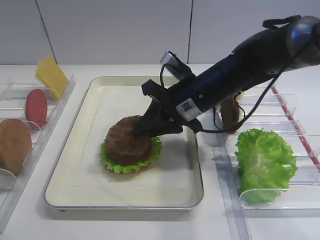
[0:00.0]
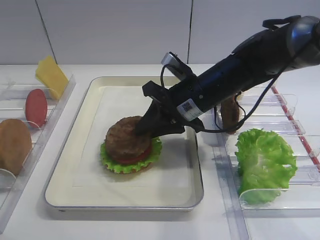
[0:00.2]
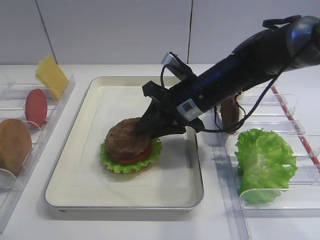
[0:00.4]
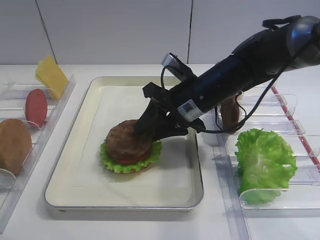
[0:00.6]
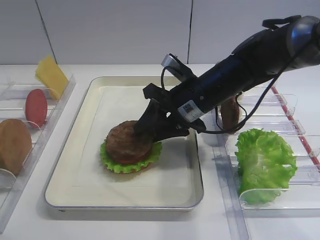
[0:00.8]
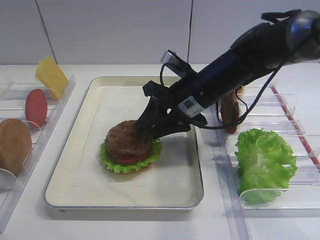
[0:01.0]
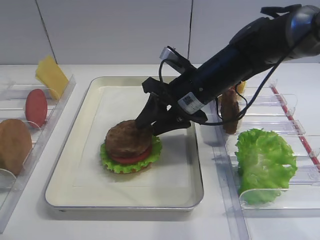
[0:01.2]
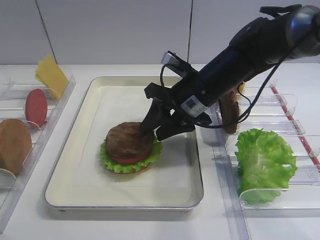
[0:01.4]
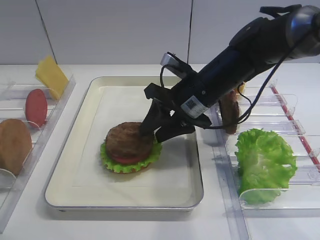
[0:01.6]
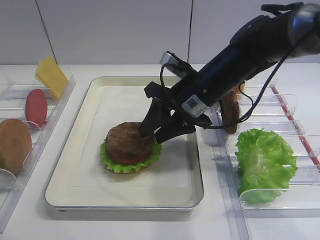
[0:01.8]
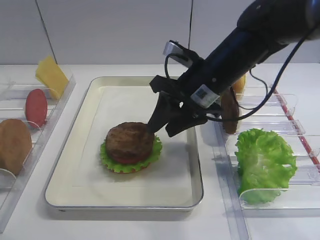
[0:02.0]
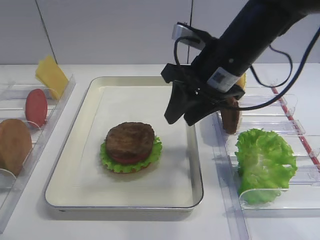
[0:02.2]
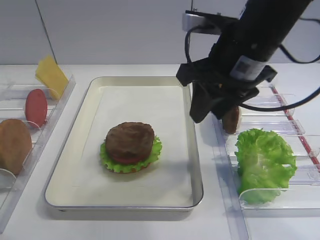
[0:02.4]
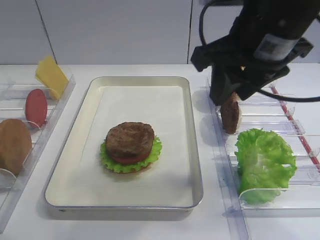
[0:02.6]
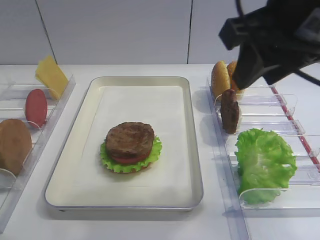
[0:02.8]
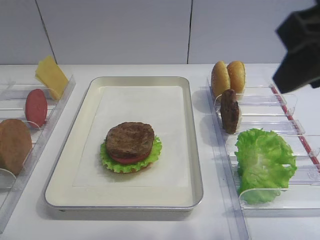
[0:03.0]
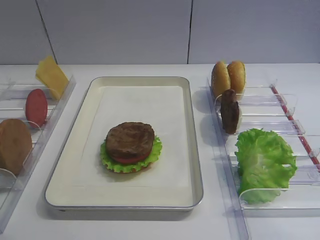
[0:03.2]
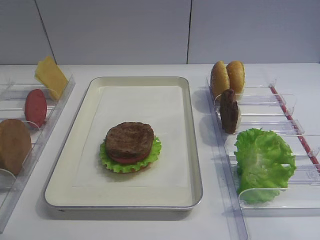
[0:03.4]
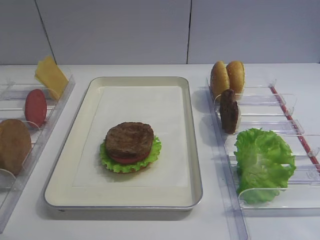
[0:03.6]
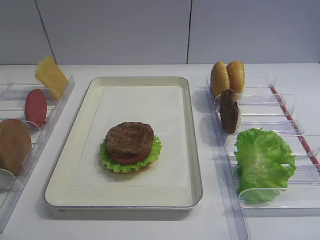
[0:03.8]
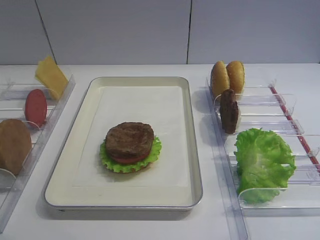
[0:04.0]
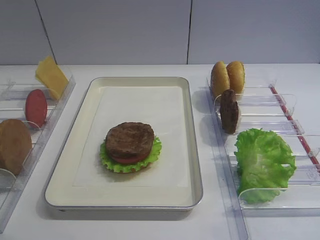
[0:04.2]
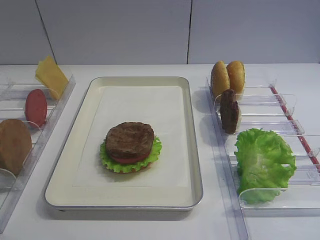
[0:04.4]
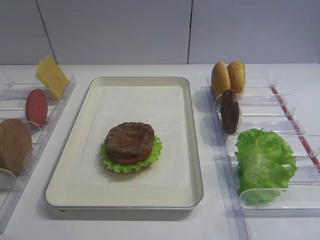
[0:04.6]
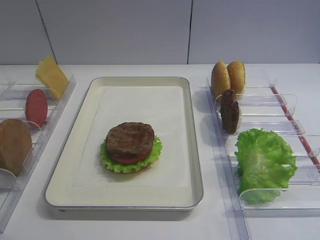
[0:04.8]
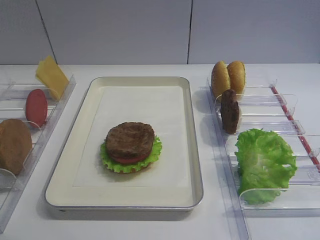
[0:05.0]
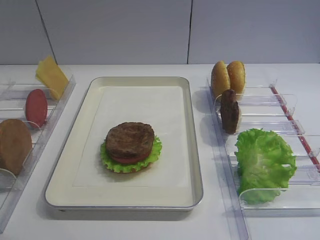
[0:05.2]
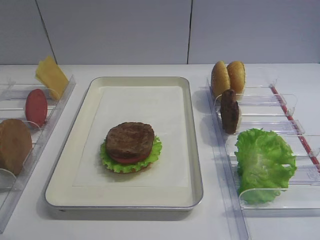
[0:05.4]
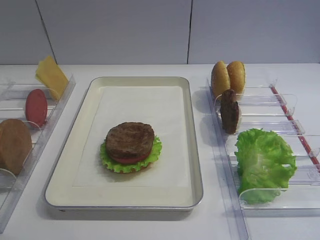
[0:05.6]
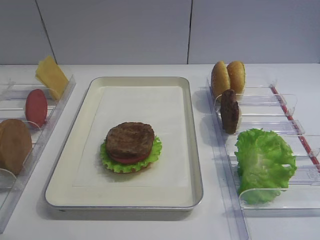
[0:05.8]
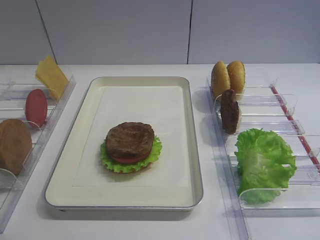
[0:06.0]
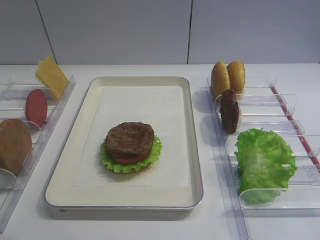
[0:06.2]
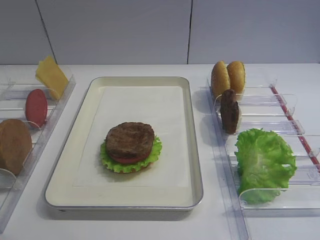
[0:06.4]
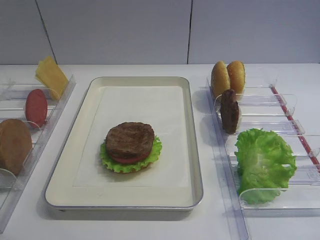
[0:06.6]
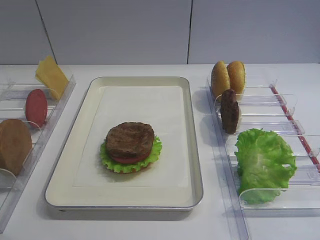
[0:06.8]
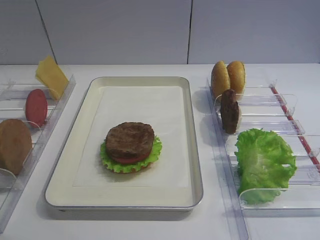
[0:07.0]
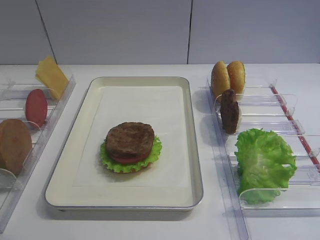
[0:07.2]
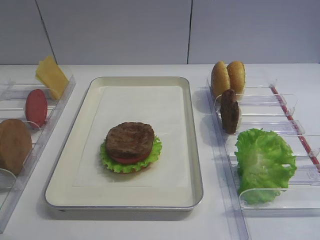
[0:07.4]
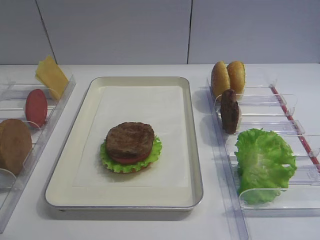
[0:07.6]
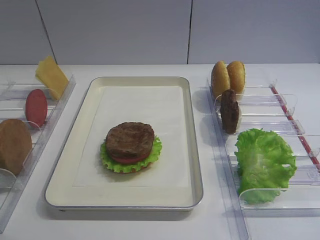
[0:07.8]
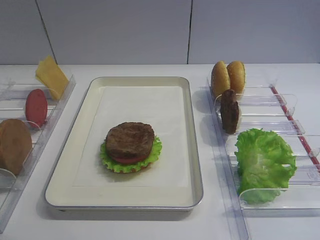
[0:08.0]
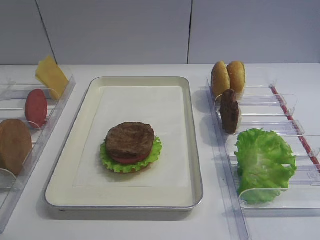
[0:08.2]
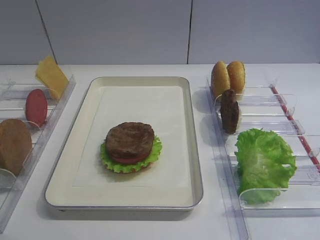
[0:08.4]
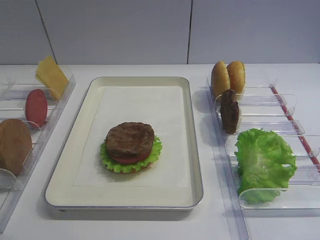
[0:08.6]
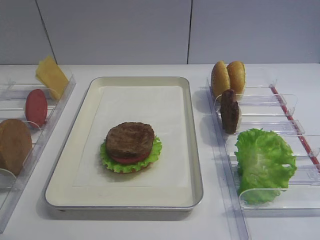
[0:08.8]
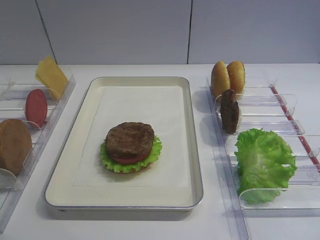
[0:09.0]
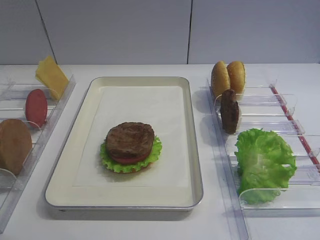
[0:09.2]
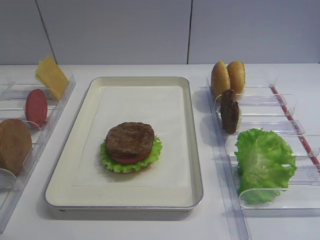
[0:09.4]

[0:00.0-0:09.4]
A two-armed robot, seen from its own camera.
Step, 0:00.0 to 0:02.0: Place the cutlet on the tomato slice with the right gripper.
0:00.0 to 0:01.6: The right gripper opens.
0:01.6 to 0:03.2: The right gripper is displaced backward, upward and to the right by approximately 35 cm.
0:06.2 to 0:09.4: Both grippers stay about where they are.

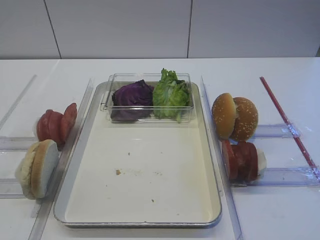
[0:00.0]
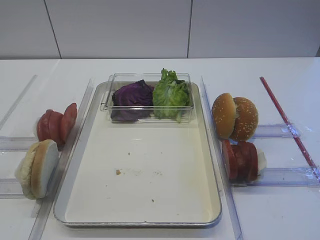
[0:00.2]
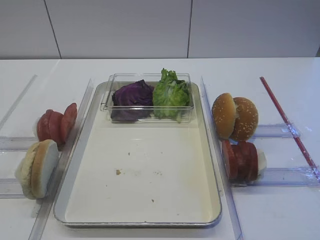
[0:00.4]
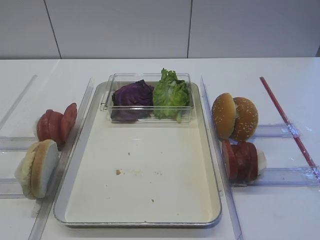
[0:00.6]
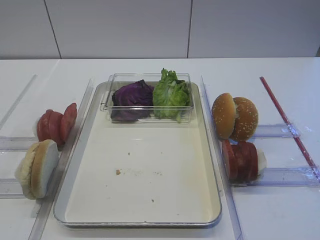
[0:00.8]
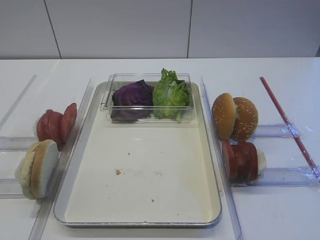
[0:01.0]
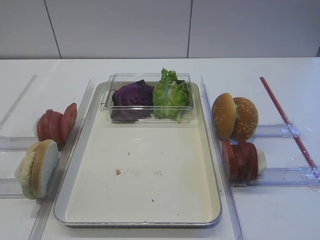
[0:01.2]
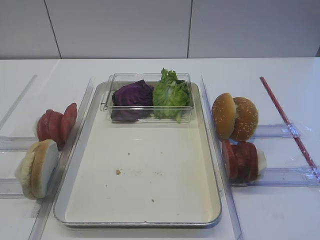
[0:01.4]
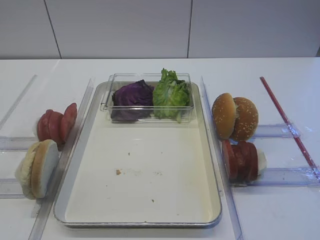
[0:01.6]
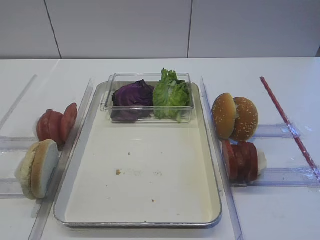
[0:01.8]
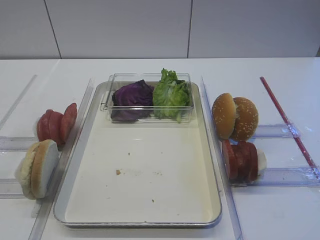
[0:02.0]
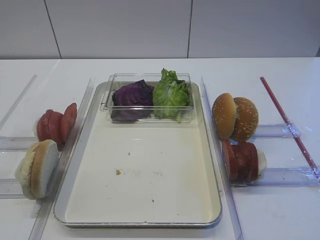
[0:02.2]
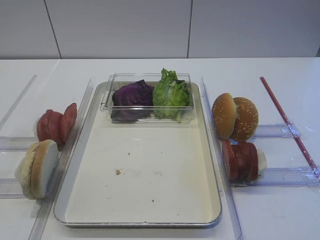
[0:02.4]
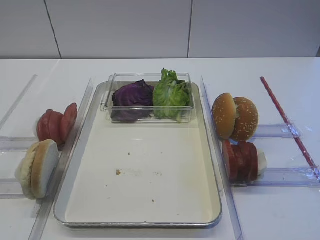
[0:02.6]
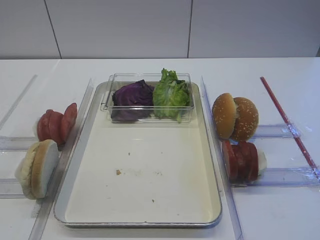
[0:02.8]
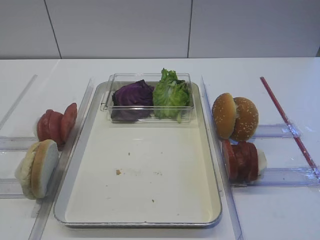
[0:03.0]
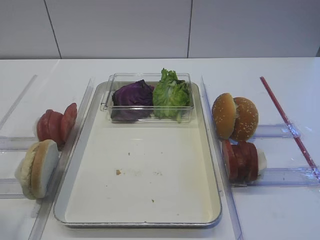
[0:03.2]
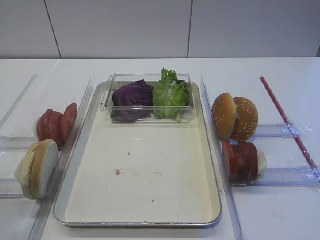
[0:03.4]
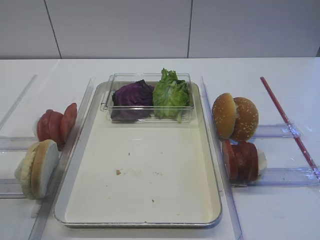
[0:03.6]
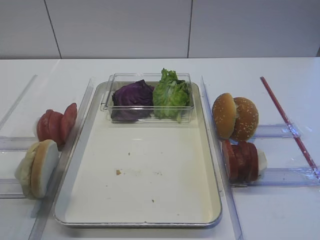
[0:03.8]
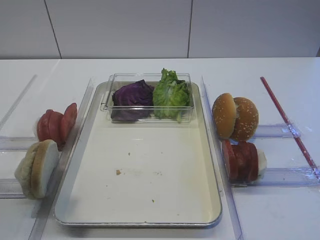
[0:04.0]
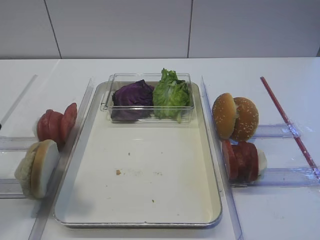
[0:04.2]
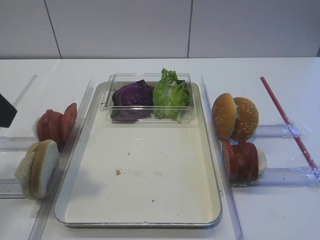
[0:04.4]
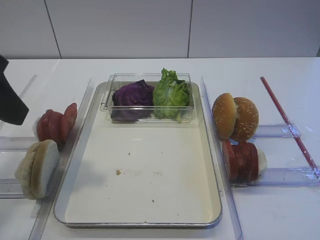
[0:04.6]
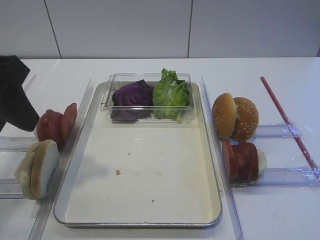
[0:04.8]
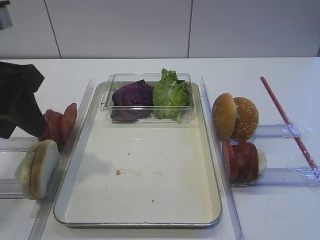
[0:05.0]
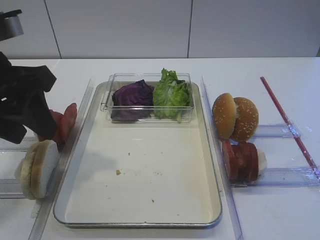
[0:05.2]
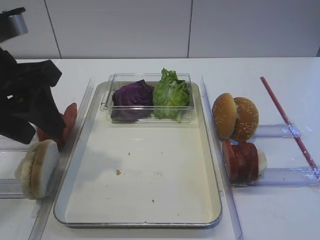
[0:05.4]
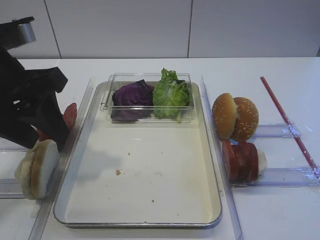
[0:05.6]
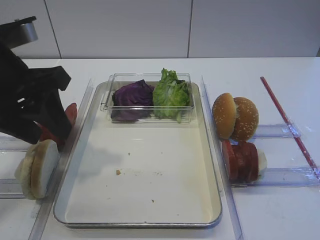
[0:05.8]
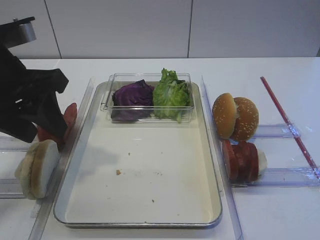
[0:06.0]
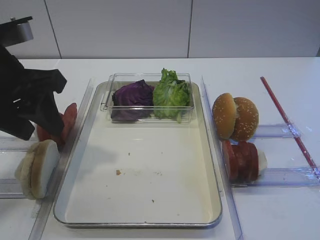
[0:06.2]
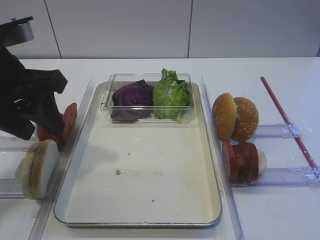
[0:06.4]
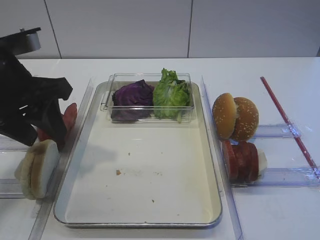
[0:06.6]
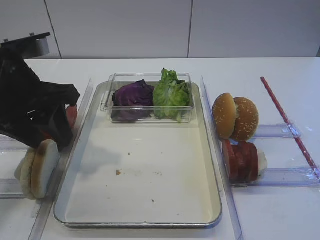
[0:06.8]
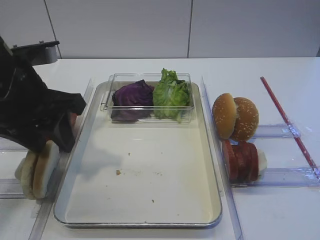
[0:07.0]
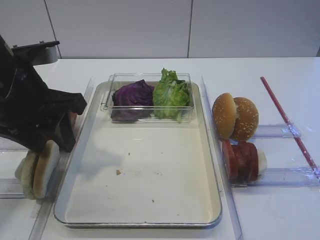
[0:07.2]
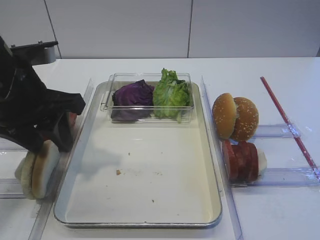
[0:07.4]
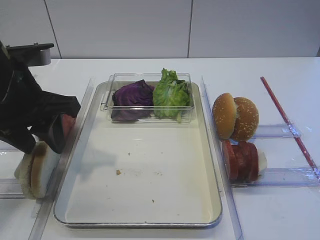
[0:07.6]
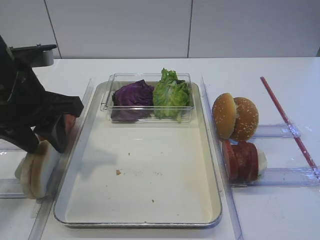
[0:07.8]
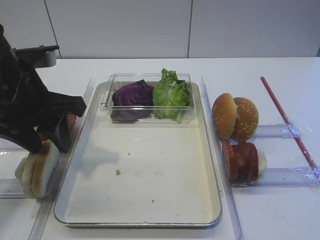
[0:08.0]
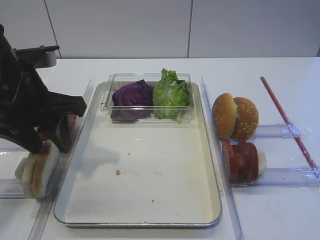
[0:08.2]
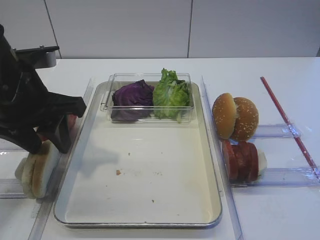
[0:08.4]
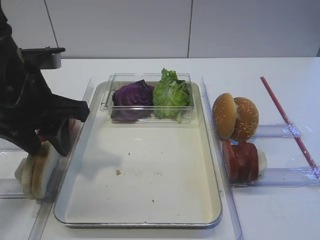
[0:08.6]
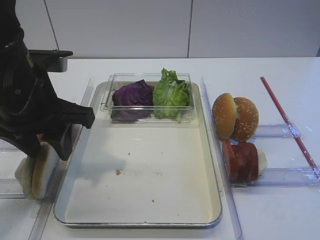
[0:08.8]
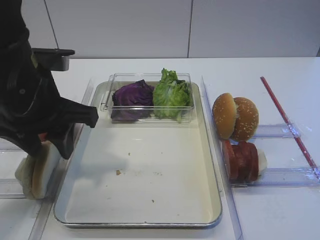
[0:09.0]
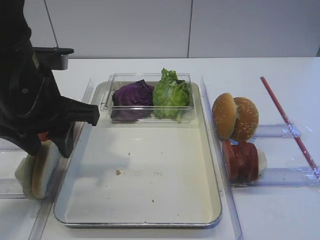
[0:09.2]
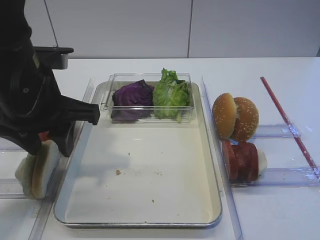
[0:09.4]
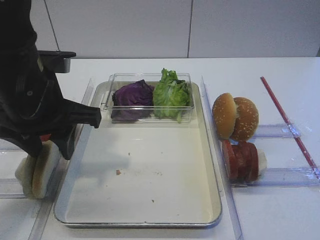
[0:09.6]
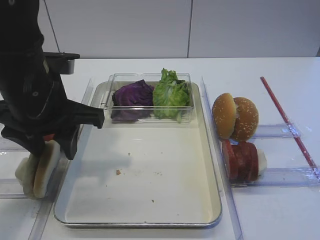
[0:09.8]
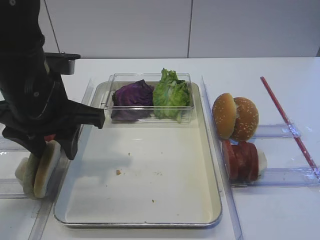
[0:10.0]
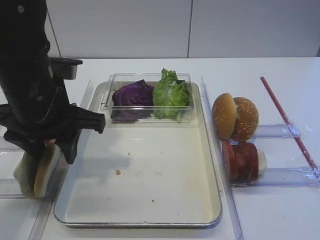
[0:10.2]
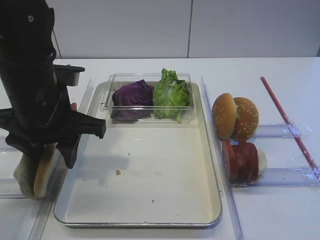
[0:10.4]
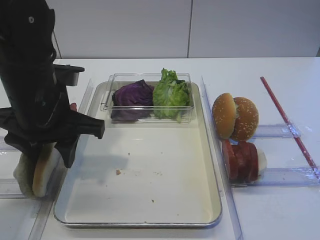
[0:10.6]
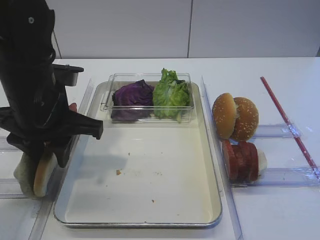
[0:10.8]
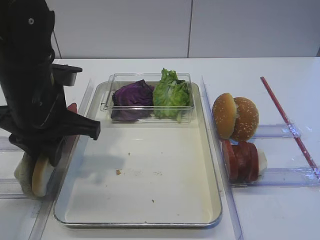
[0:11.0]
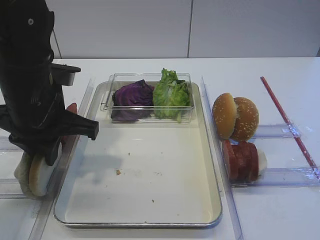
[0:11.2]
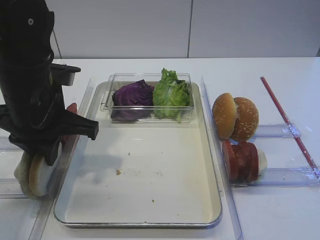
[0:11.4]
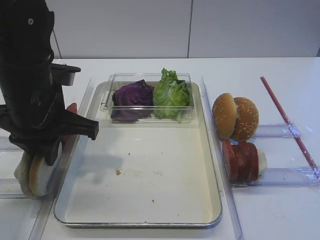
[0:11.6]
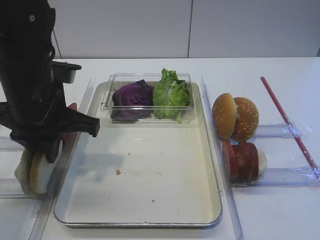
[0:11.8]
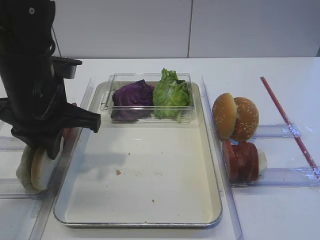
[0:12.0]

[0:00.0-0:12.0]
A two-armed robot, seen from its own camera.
0:03.0 to 0:04.4: The left gripper shifts roughly 15 cm forward.
0:04.4 to 0:06.0: The left gripper moves forward and downward, about 10 cm.
0:06.0 to 0:09.0: The grippers stay close to where they were, moving slightly.
0:09.0 to 0:10.4: There are only small adjustments of the grippers.
0:10.4 to 0:12.0: The left gripper closes up.

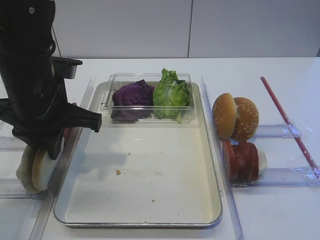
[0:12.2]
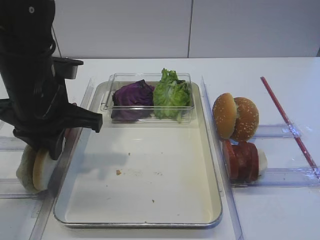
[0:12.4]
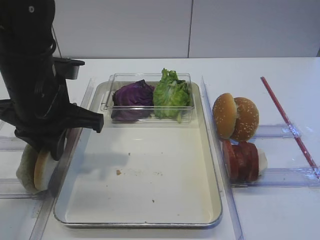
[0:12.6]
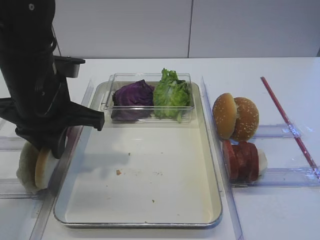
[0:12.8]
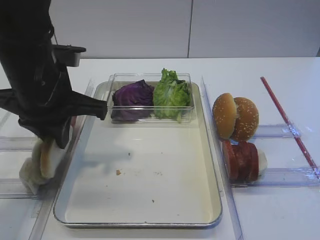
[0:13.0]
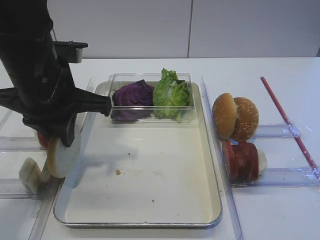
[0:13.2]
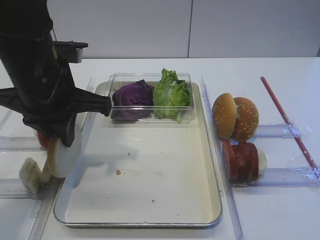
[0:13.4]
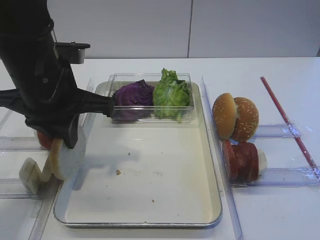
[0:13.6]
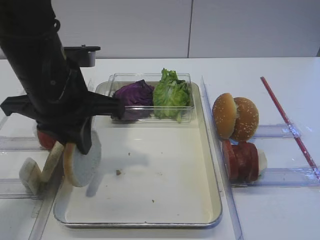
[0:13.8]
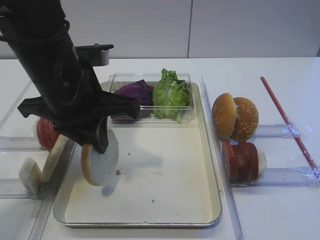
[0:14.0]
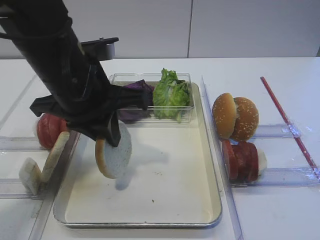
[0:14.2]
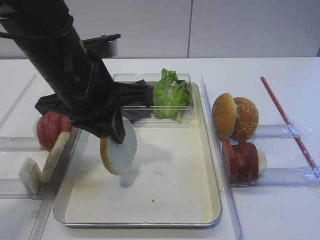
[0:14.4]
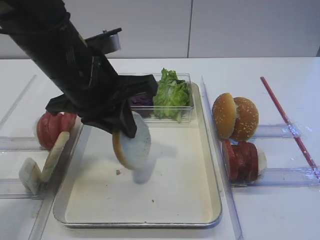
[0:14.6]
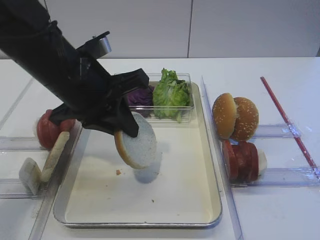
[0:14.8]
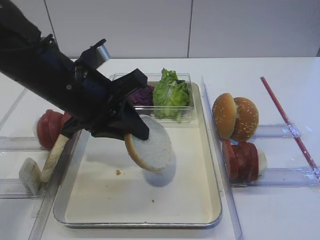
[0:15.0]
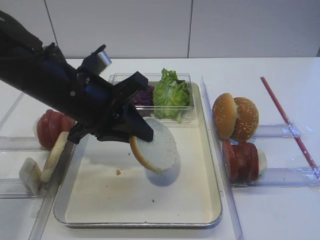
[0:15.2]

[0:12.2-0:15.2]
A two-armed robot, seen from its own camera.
0:12.2 to 0:13.8: There are only small adjustments of the grippers.
